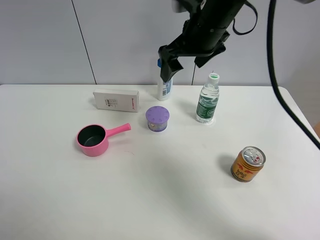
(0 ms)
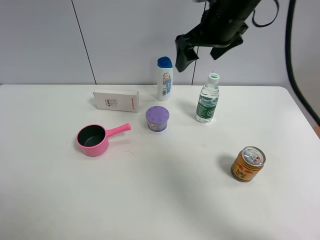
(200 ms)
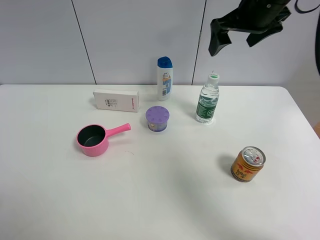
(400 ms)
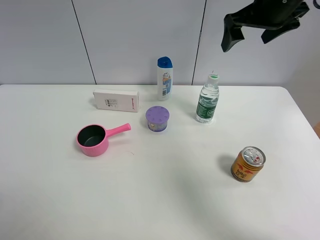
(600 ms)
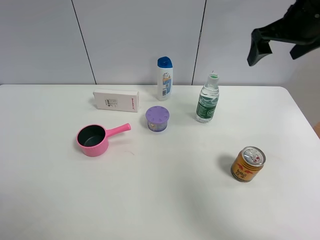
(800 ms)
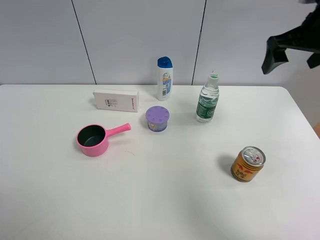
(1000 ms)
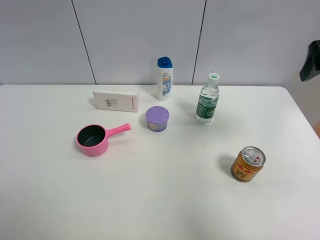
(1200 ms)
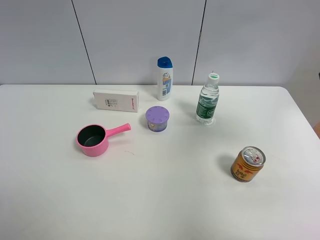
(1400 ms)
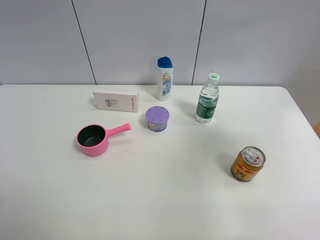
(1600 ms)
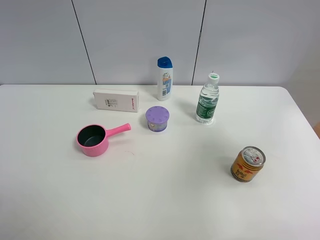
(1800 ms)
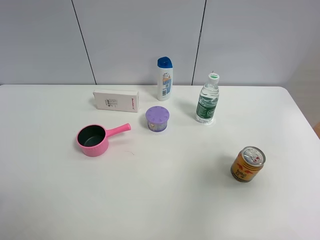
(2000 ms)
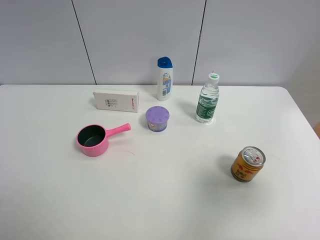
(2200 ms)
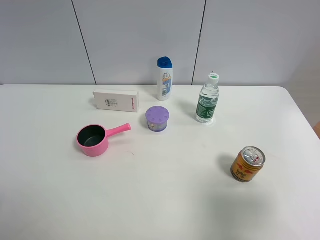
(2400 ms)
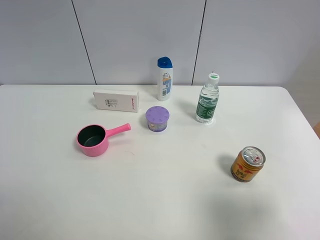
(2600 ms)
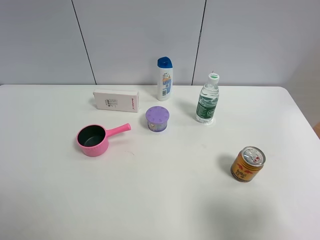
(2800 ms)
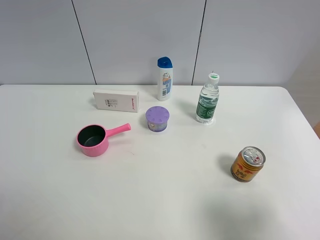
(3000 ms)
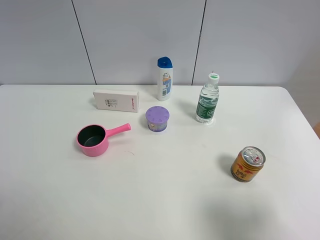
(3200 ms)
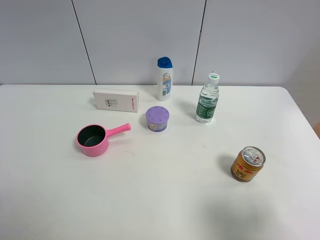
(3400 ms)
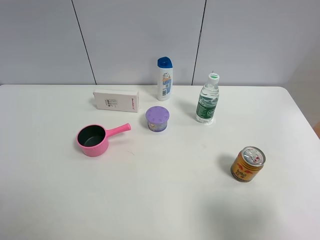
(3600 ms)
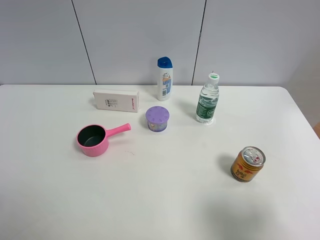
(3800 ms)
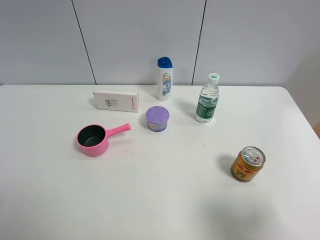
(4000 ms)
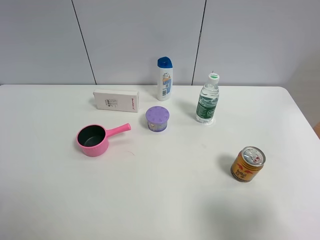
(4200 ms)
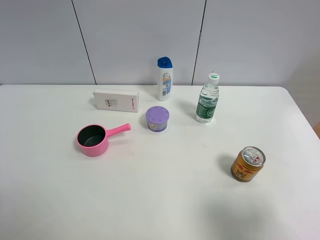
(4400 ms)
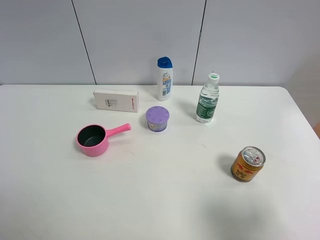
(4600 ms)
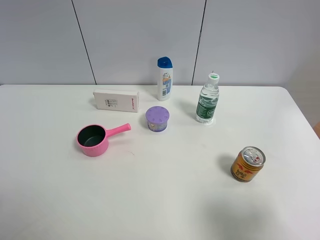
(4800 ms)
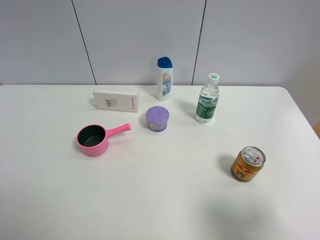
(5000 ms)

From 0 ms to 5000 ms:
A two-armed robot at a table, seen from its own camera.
Task of the whole recording: the gripper move the object.
From 0 ms to 1600 ms: The right gripper is displaced to the right and backward by roughly 30 cm.
From 1600 ms to 3400 ms: The right gripper shifts approximately 20 cm backward and downward.
From 3400 ms to 5000 ms: Both grippers stay about where they are.

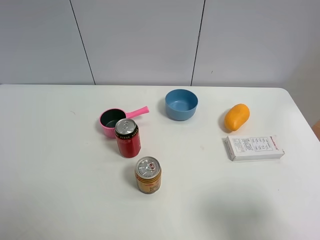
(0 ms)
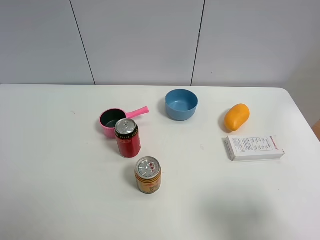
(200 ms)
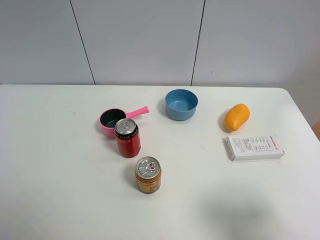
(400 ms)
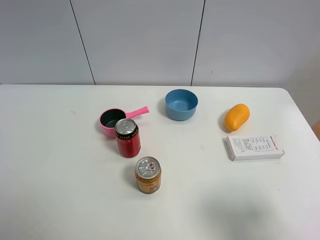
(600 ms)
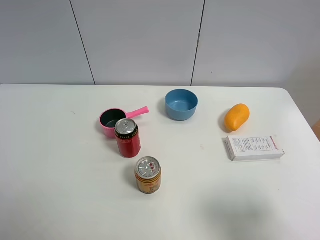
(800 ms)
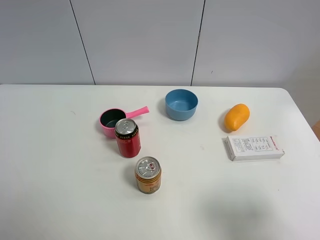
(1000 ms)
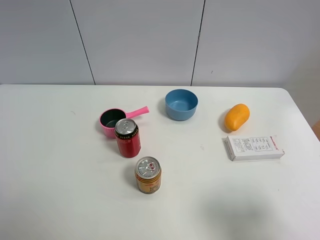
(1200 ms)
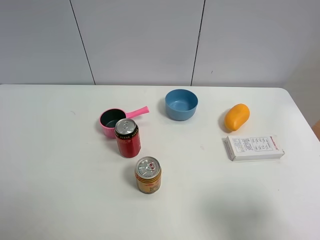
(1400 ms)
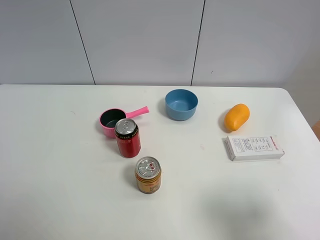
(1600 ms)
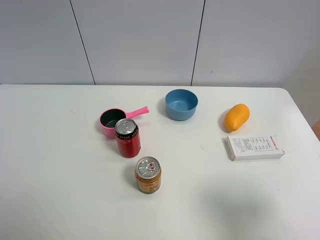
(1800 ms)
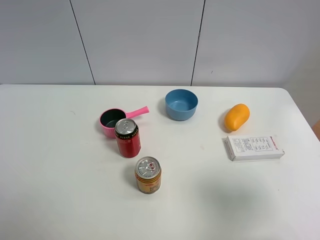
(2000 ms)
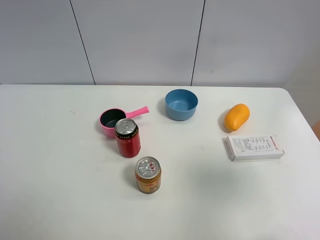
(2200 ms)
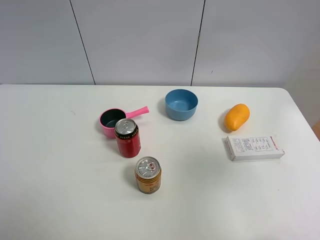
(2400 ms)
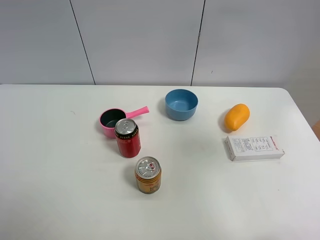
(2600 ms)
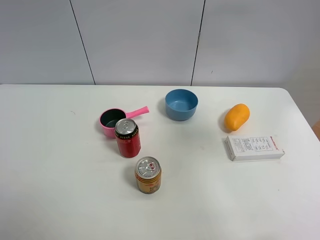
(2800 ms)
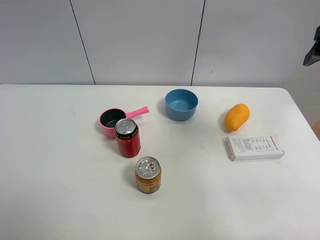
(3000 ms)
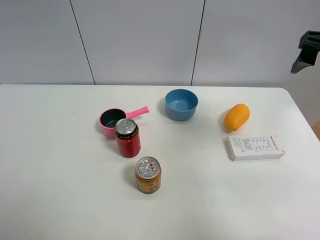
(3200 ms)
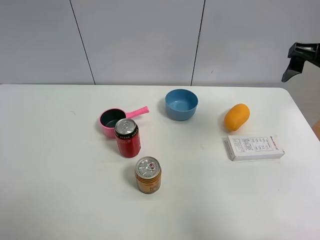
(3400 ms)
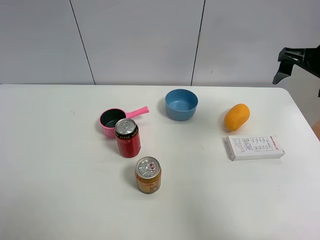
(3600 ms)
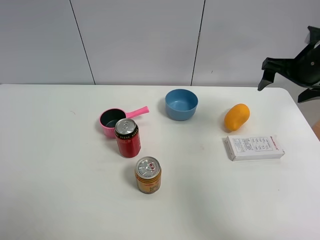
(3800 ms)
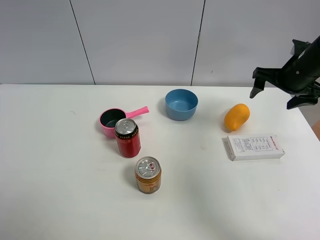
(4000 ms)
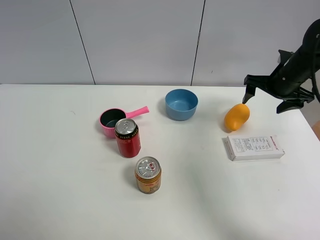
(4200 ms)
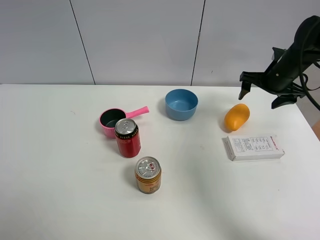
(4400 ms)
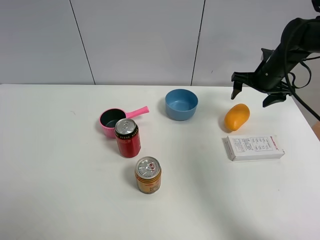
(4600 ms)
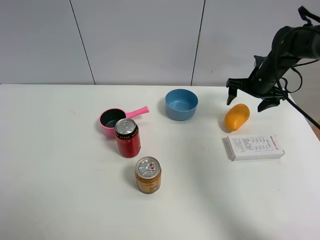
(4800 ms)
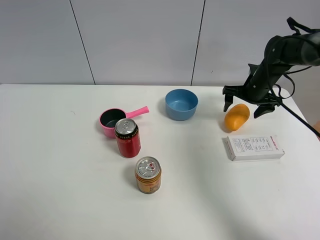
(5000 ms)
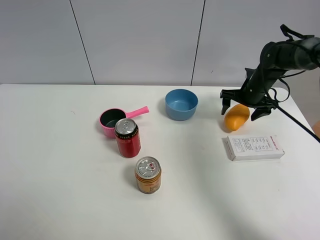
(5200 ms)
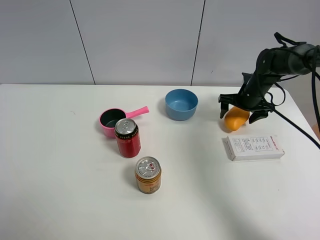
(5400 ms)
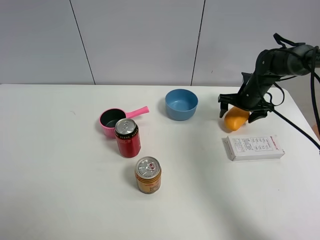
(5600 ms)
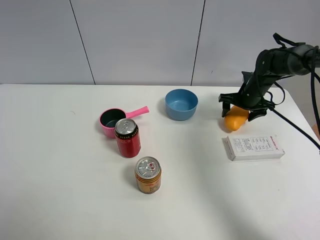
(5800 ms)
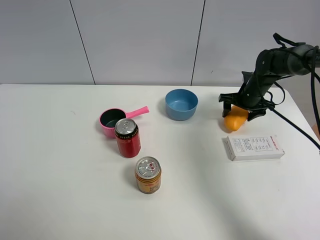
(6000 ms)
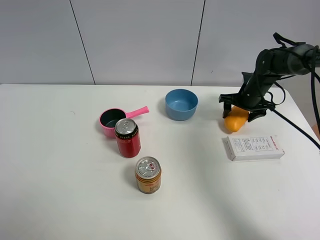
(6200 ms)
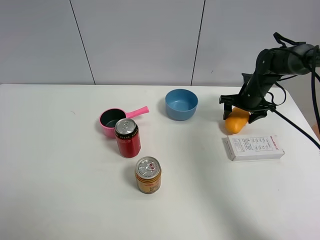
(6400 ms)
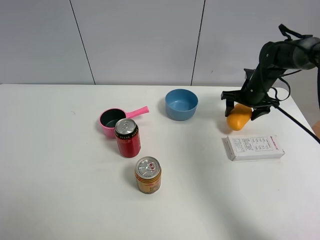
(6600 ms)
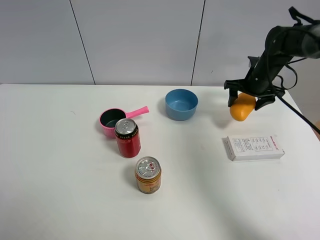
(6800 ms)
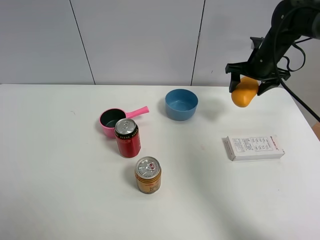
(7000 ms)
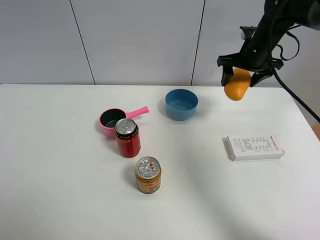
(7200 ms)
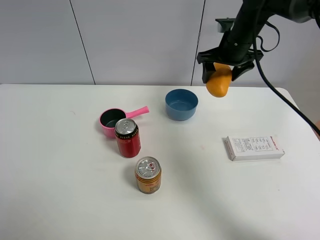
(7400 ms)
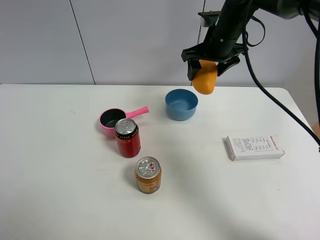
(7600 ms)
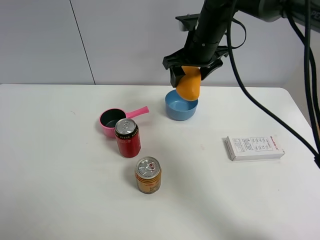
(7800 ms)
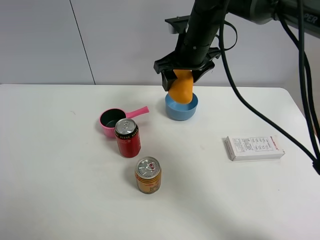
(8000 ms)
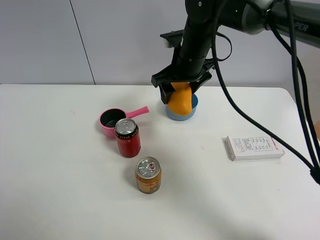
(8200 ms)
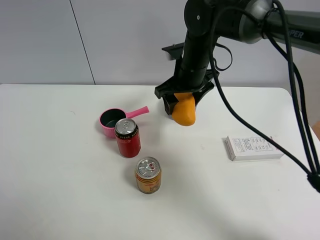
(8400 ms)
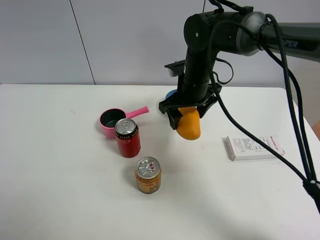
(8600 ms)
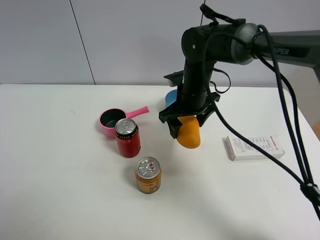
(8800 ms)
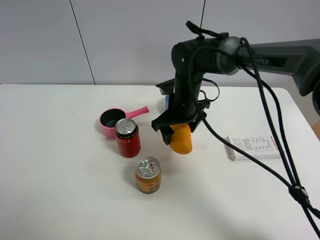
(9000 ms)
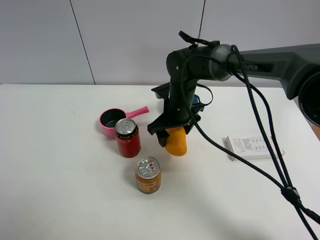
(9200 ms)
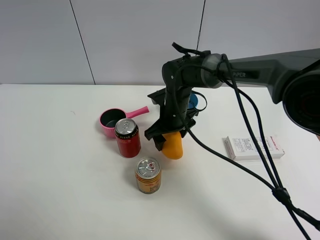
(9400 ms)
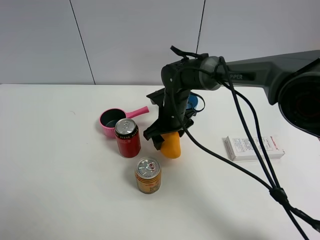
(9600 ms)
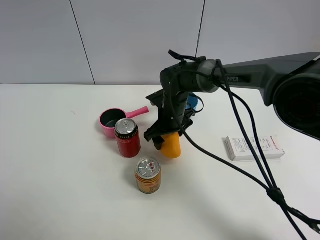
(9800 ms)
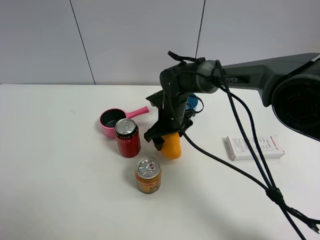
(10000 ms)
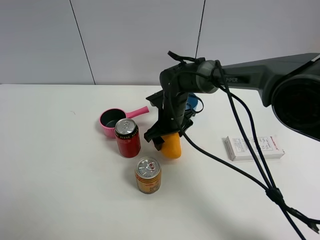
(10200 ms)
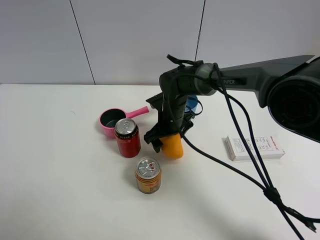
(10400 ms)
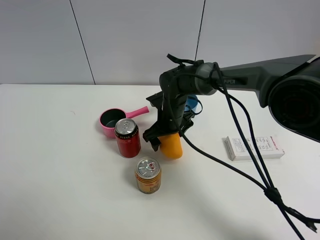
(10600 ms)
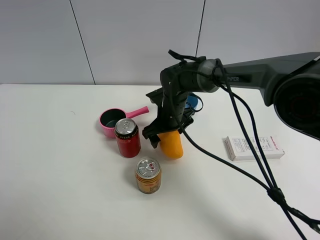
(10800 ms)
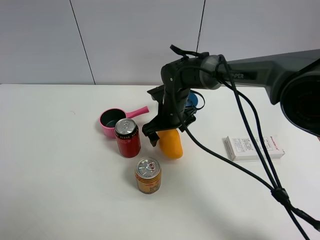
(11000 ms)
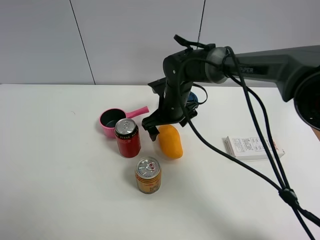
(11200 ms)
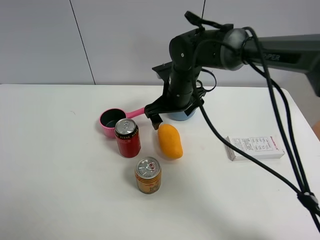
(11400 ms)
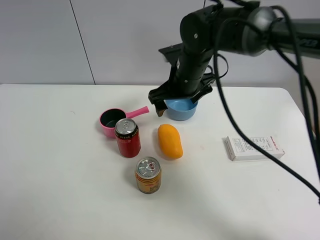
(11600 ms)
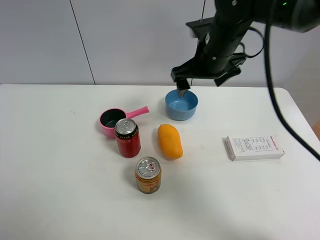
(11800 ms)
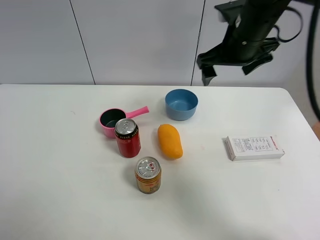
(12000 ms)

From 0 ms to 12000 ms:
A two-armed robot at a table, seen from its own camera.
Task of the whole recording: the gripper move the object.
Step, from 0 ms to 6000 ms: Grasp the mango with the right gripper.
Step, from 6200 ms to 11000 ms: Place the mango on the table with the right gripper.
From 0 ms to 1600 ms: Both grippers stay about where they are.
From 1600 ms to 3000 ms: The right gripper goes approximately 25 cm forward and upward.
From 3000 ms to 4400 ms: The right gripper heads forward and downward, covering some 25 cm.
From 4400 ms to 6000 ms: The right gripper heads downward, covering approximately 10 cm, and closes up.
From 6000 ms to 7600 ms: The right gripper goes roughly 20 cm upward and to the left.
From 7600 ms to 9000 ms: The right gripper moves downward, to the left and backward, some 15 cm.
From 9000 ms to 10400 ms: The right gripper shifts some 5 cm downward, and opens up.
From 10400 ms to 12000 ms: The right gripper goes approximately 25 cm upward and to the right, and opens up.

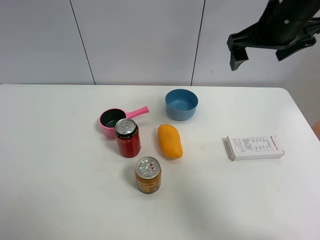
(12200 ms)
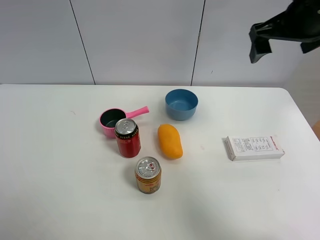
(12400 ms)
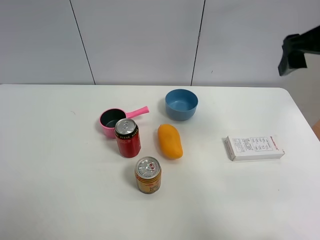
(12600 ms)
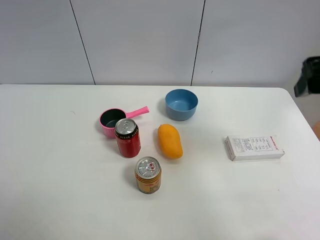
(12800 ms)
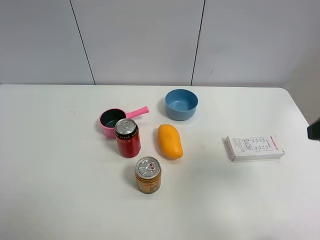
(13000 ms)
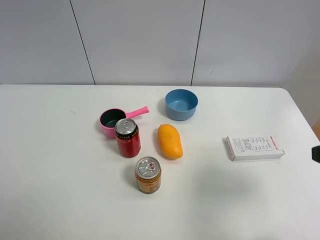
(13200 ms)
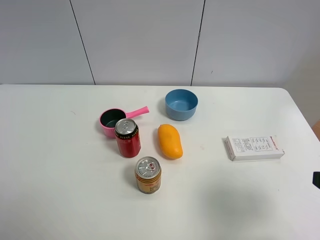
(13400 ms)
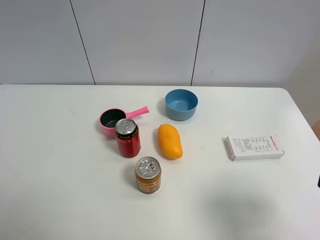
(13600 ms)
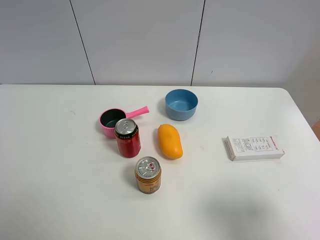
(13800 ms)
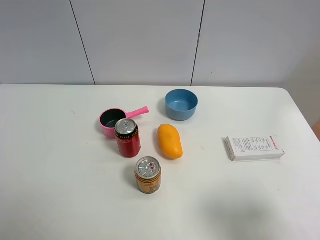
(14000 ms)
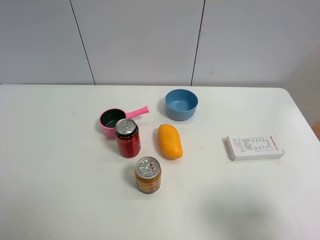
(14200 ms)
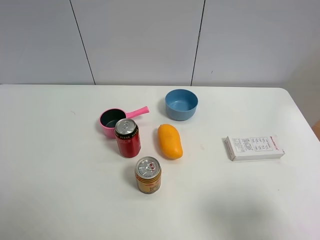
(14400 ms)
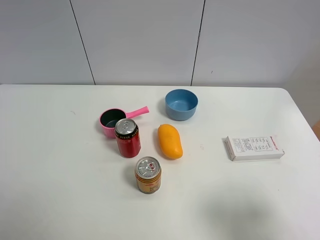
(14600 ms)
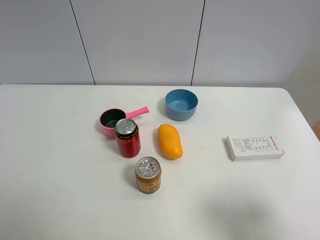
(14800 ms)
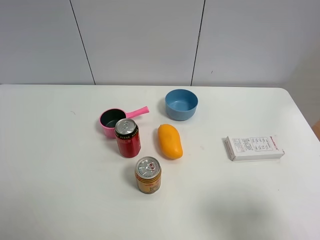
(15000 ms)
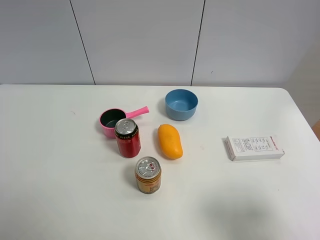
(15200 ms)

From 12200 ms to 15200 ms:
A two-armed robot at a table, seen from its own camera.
Task of the whole recording: the gripper move the object.
From 12200 ms to 13800 ms: The right gripper heads backward, covering some 30 cm.
From 13800 ms to 15200 ms: The two grippers keep their place.

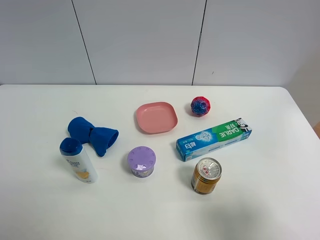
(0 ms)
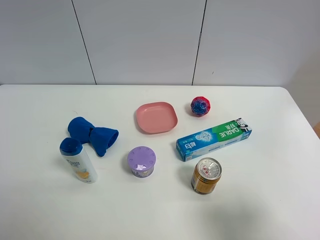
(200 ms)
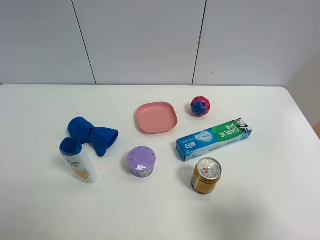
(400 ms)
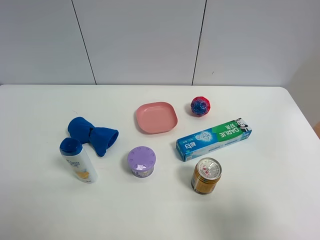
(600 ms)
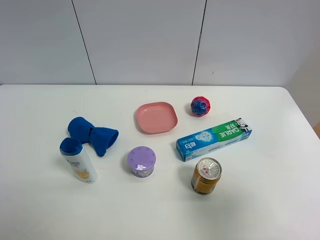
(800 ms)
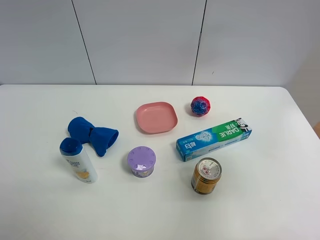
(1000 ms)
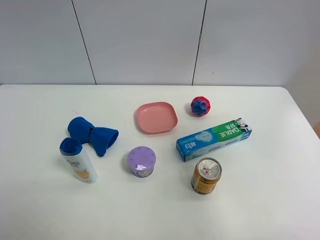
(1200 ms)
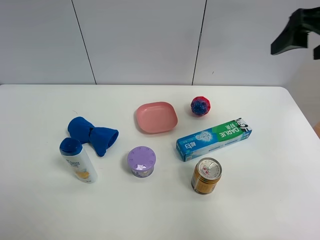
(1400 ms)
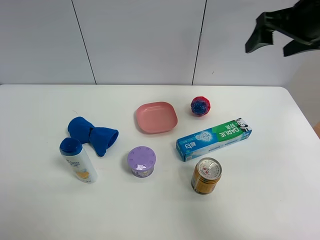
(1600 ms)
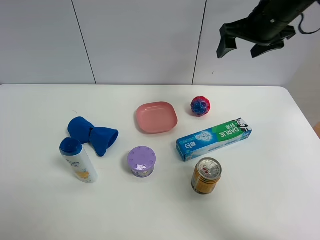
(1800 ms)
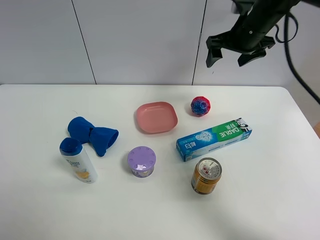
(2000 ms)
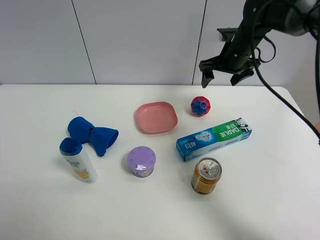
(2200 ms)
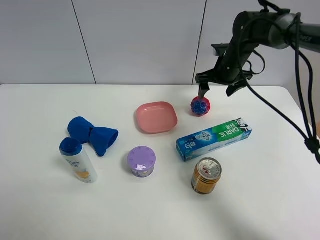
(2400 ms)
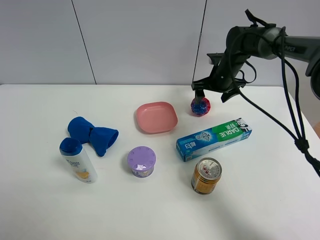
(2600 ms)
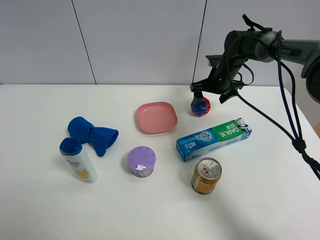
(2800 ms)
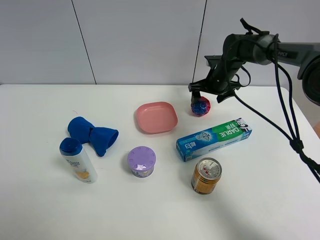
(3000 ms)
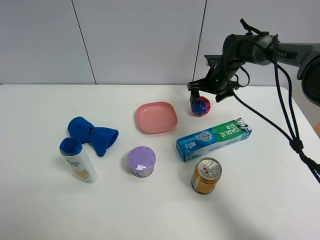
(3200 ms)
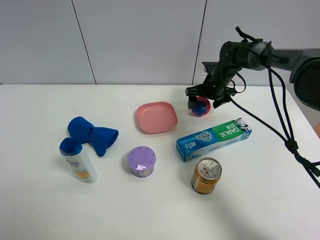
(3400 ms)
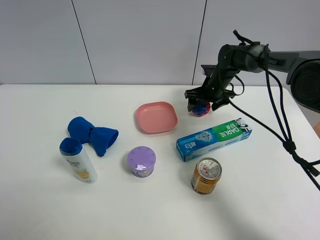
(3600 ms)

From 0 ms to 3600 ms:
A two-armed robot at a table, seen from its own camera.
Task of the whole recording: the gripper move the object.
From 0 ms to 1800 ms: The right gripper is displaced forward by about 40 cm.
From 1800 ms to 3600 ms: The right gripper goes some 25 cm downward and forward.
